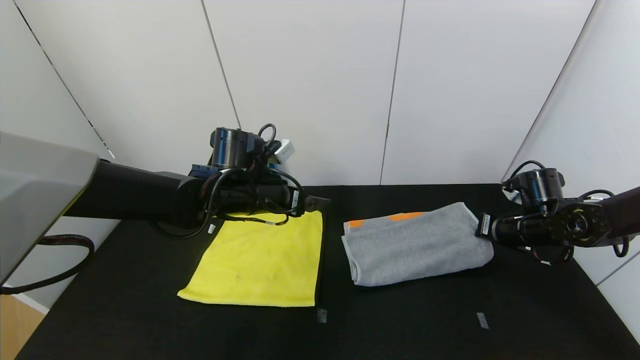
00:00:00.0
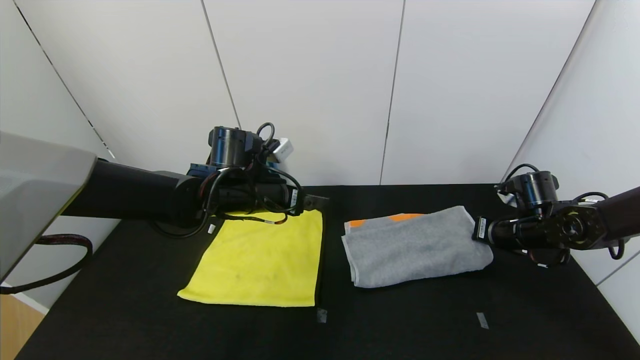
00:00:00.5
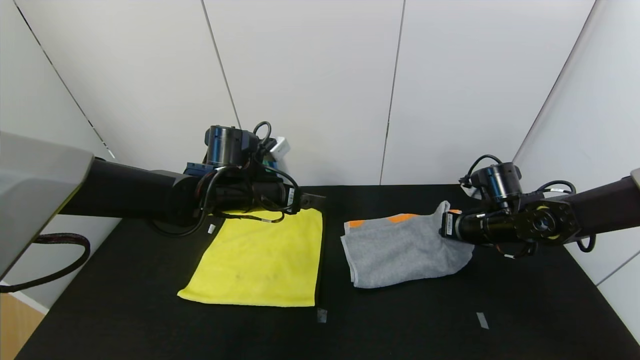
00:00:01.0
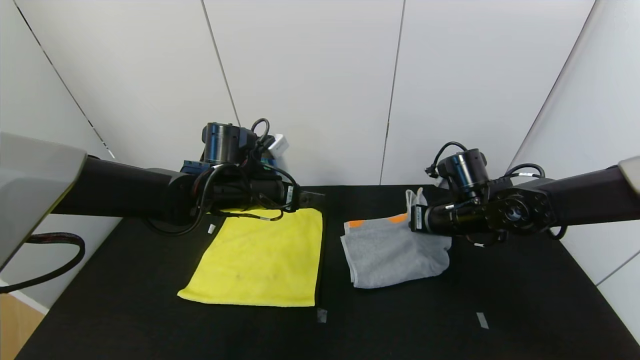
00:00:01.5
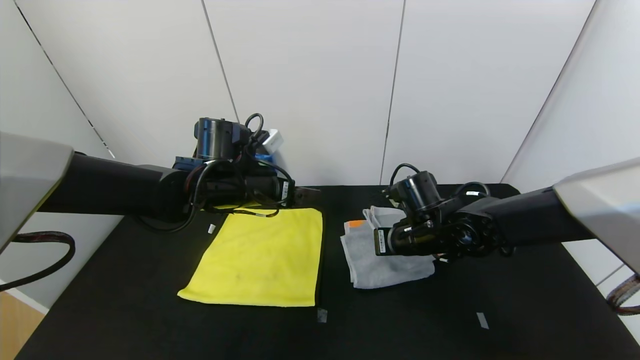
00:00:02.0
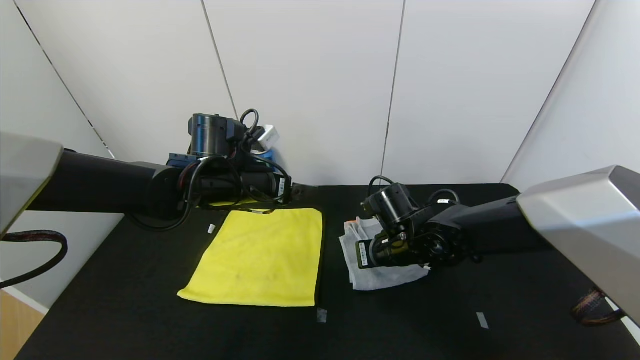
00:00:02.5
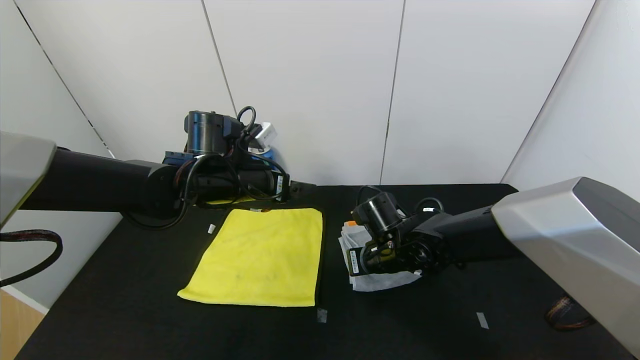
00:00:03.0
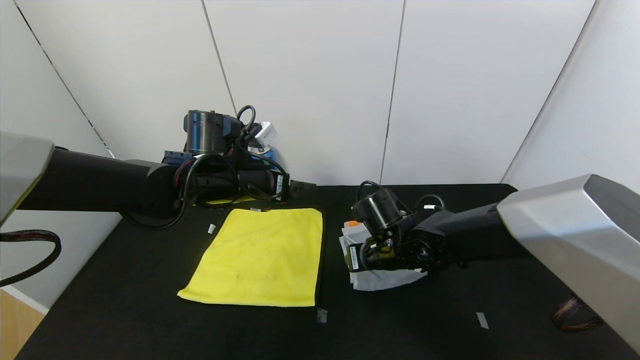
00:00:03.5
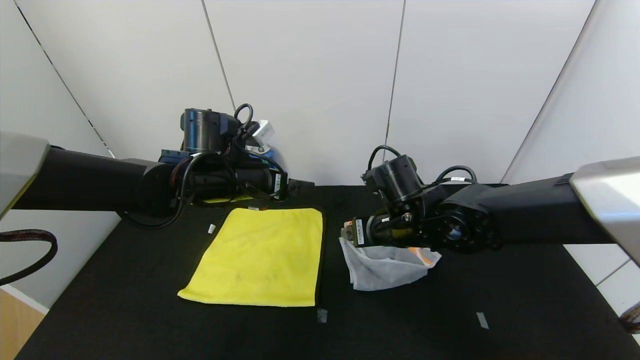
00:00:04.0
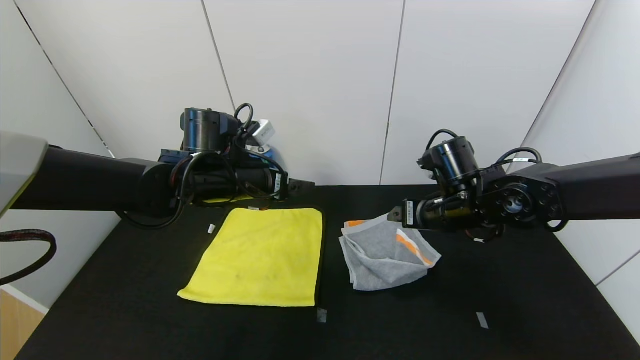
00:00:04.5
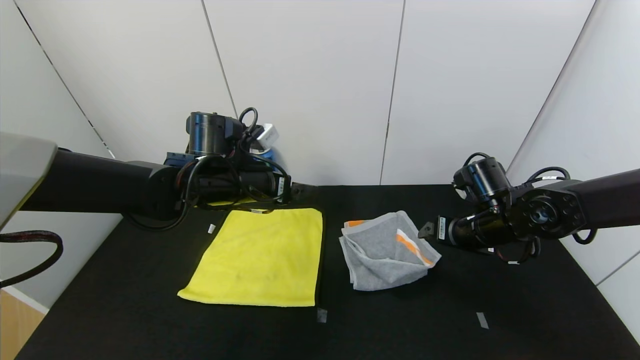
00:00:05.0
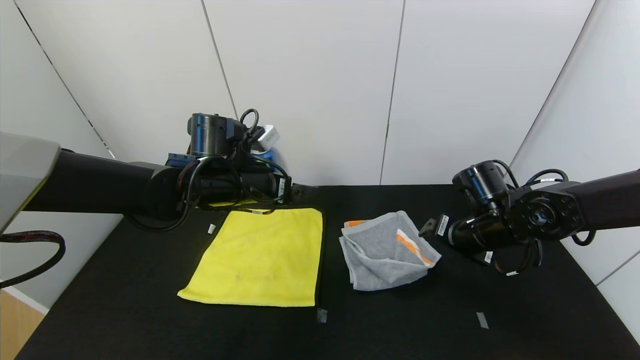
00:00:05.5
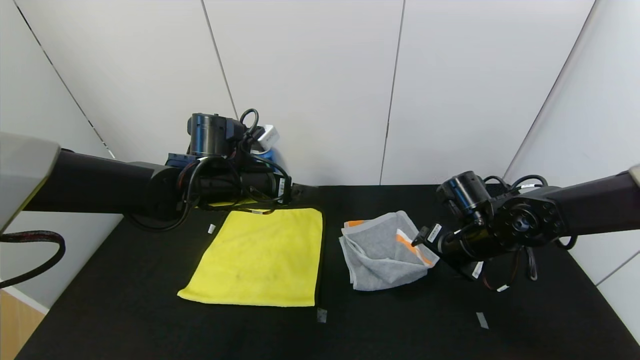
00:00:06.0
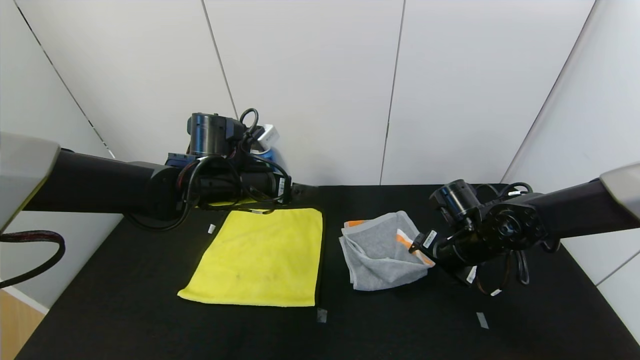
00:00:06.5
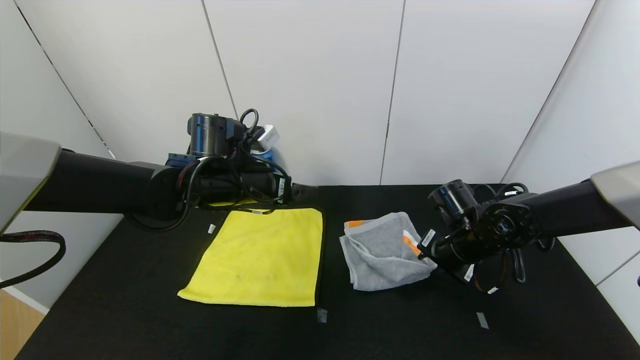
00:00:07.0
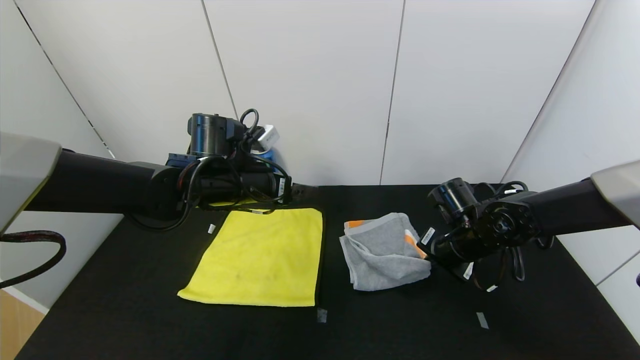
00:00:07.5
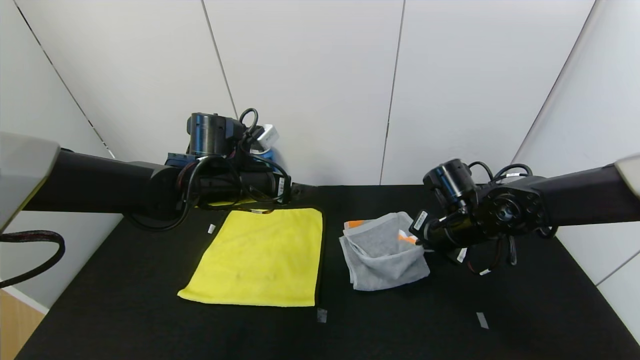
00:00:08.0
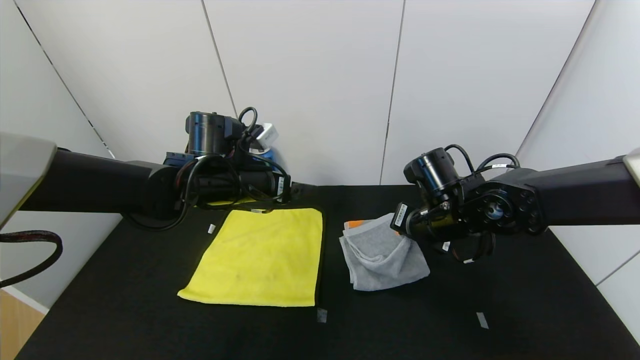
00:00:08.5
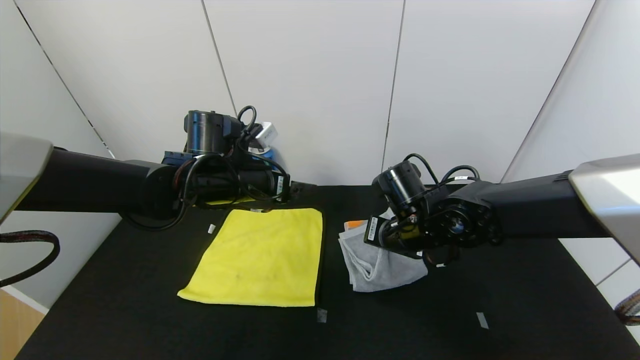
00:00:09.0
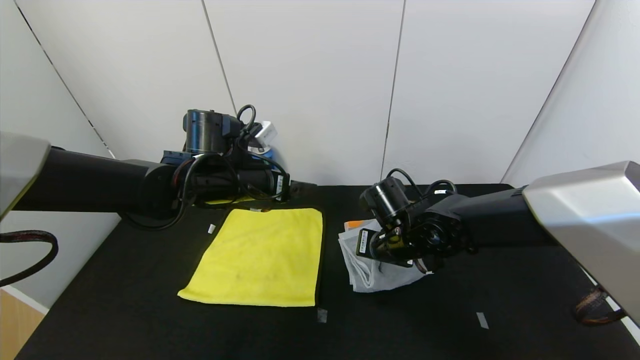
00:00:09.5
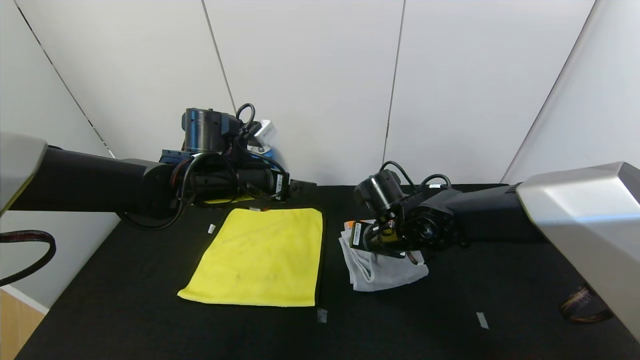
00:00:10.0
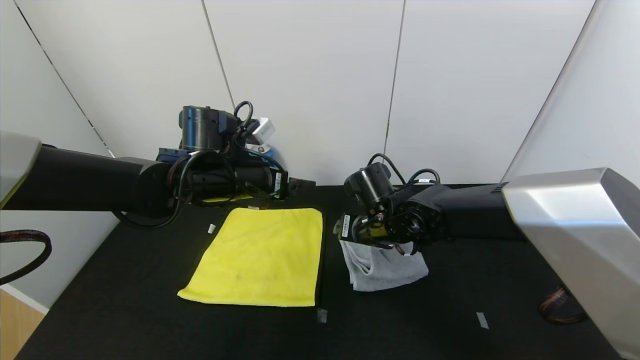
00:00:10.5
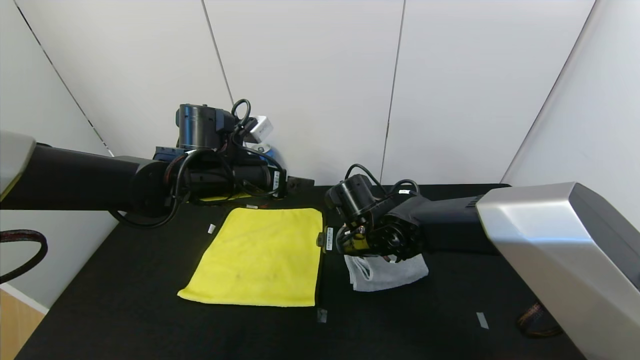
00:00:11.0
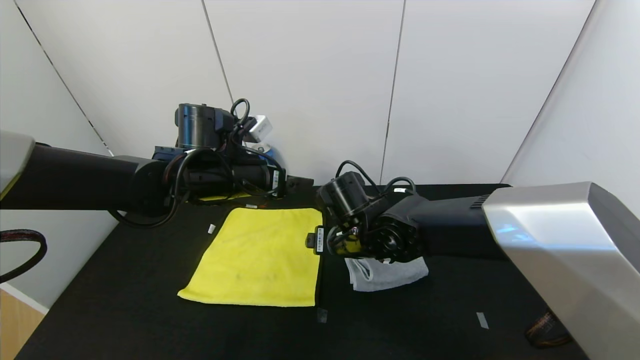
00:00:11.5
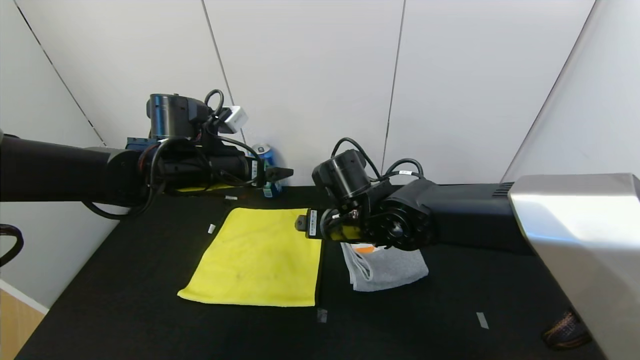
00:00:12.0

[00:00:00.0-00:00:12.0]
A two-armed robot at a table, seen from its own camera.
Task of the whole recording: Use the gripper to fold the yellow towel and grey towel in half twice,then put the yellow towel on the grey towel.
Step, 00:00:00.0 to 00:00:11.5: Fold the gray towel from right to left with right gripper.
00:00:00.0 to 00:00:02.0: The right gripper goes roughly 20 cm to the left.
00:00:02.0 to 00:00:04.0: The right gripper shifts by some 5 cm, and opens its fingers.
00:00:04.0 to 00:00:06.0: The right gripper heads to the right, covering roughly 10 cm.
00:00:06.0 to 00:00:08.0: The right gripper closes.
00:00:08.0 to 00:00:10.0: The right gripper travels to the left by some 10 cm, and opens.
00:00:10.0 to 00:00:12.0: The right gripper heads to the left, covering about 5 cm, and opens up.

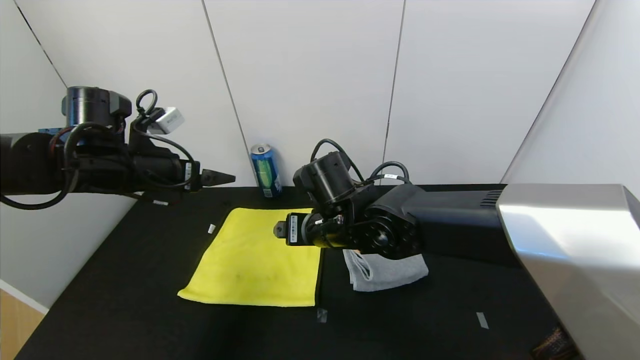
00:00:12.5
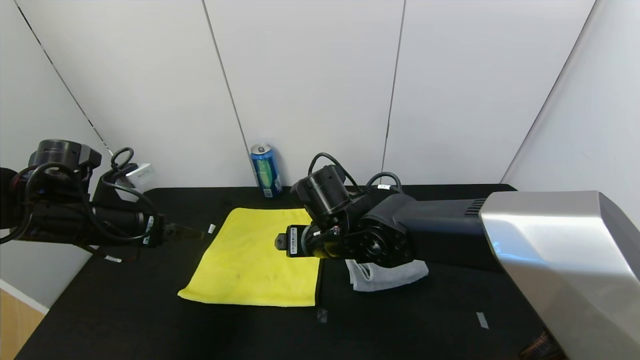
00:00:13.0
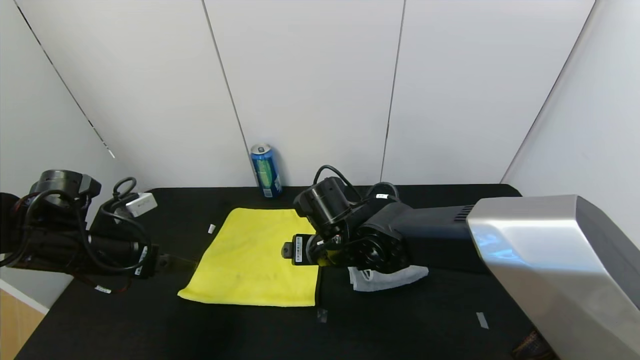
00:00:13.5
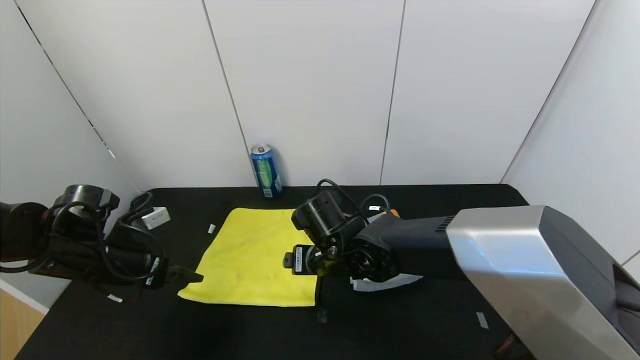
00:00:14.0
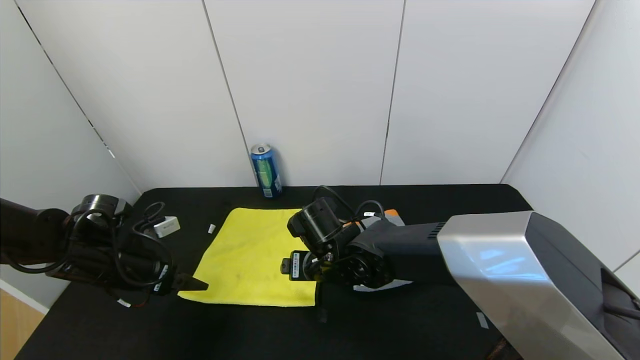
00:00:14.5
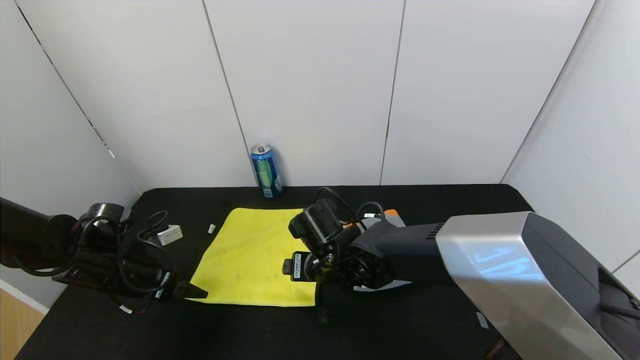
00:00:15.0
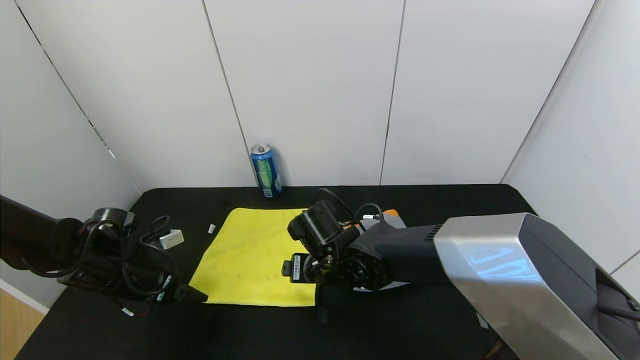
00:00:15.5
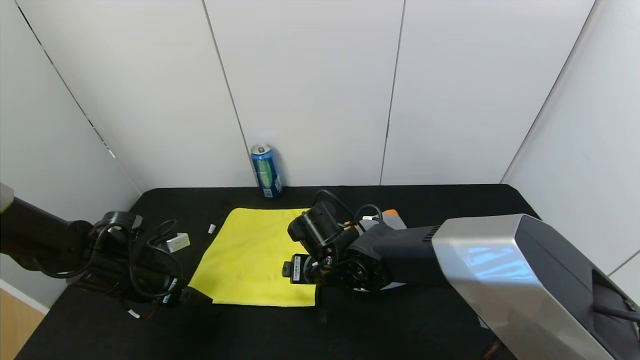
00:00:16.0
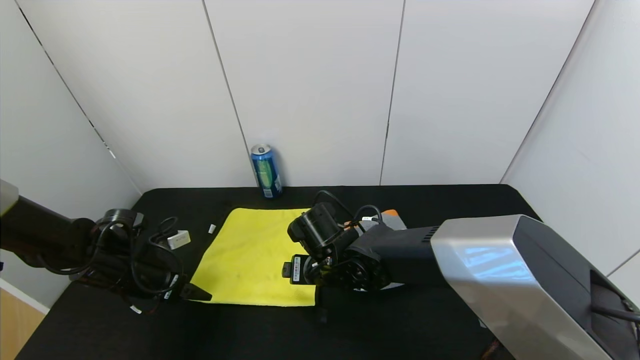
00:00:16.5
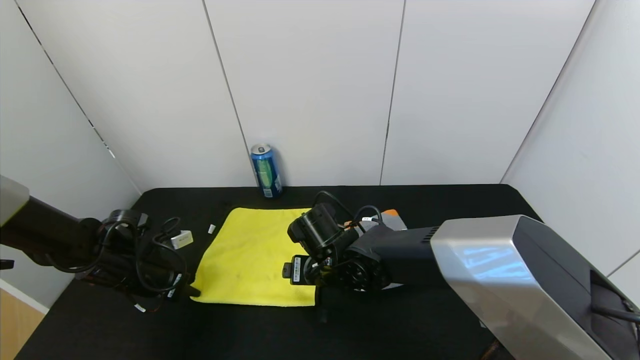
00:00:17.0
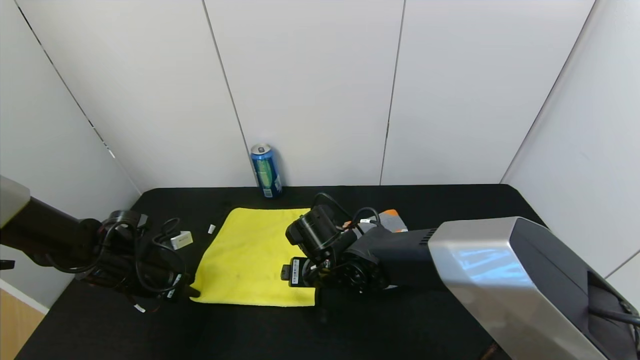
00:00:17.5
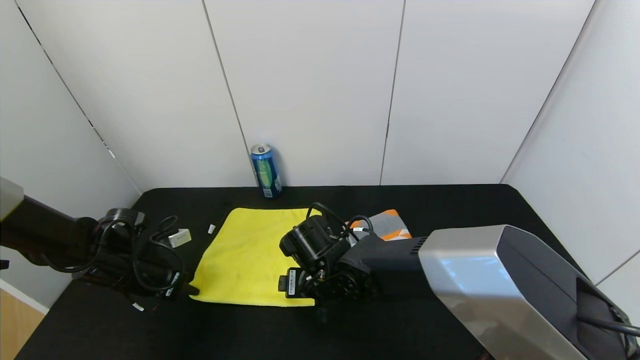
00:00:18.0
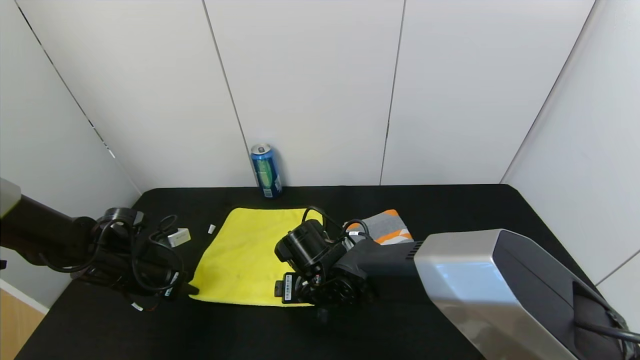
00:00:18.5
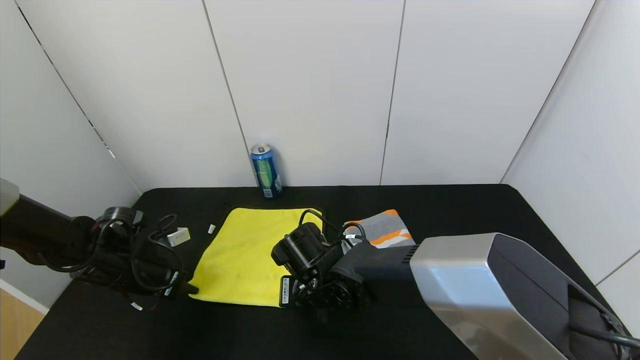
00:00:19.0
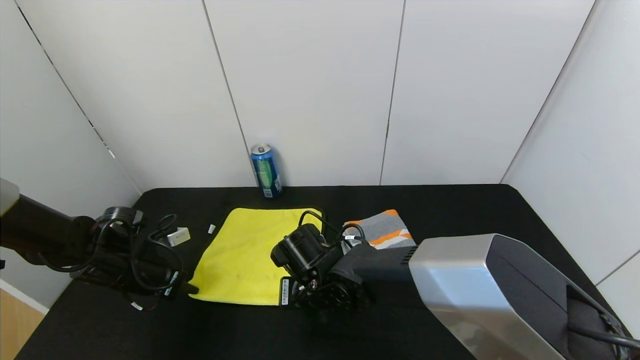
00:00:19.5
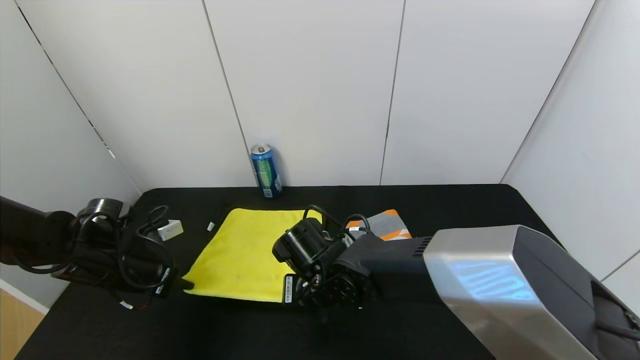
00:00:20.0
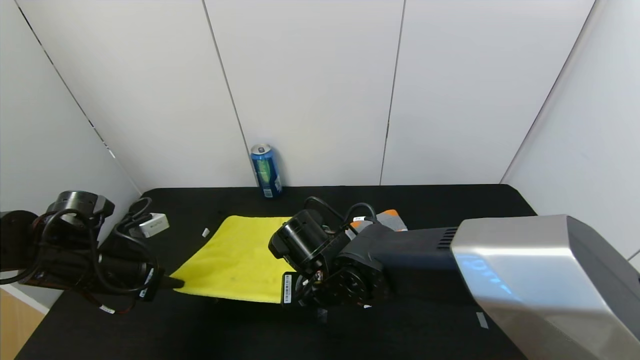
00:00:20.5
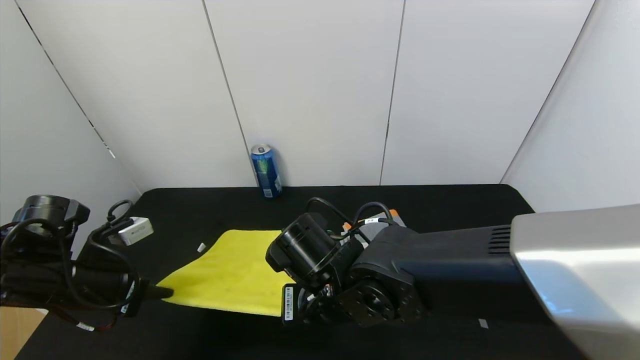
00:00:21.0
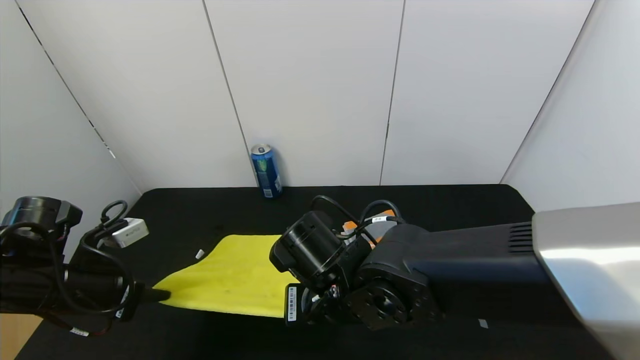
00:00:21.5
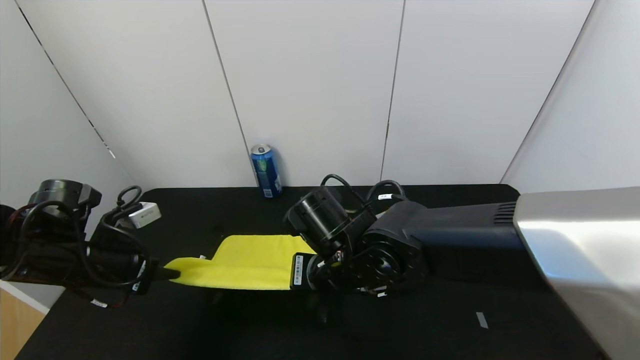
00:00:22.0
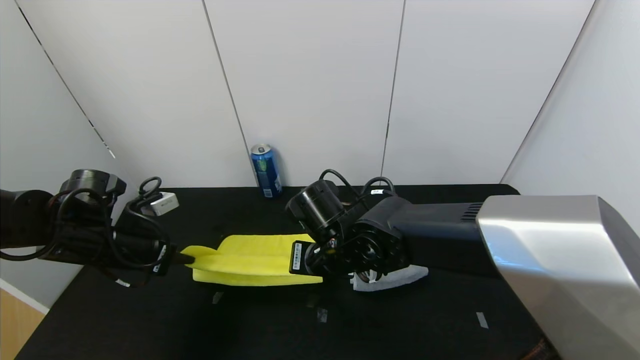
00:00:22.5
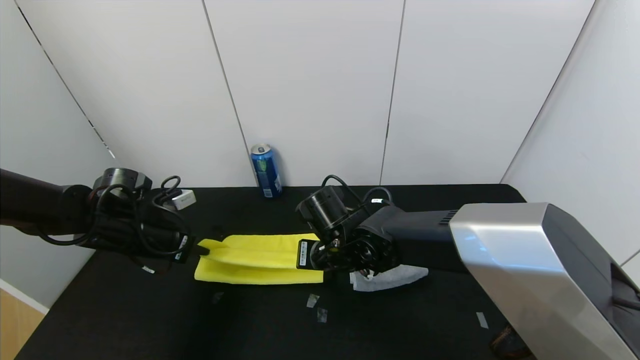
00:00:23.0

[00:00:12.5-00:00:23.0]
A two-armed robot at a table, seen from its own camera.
Task of the whole recording: Use the gripper to fold the yellow towel and grey towel in half twice,then put the yellow towel on the grey towel.
00:00:12.5 to 00:00:14.5: The left gripper moves downward and to the left, approximately 15 cm; the right gripper is displaced downward by roughly 5 cm.
00:00:14.5 to 00:00:16.5: The grippers stay close to where they were, moving slightly.
00:00:16.5 to 00:00:19.0: The right gripper closes. The left gripper closes up.
00:00:19.0 to 00:00:21.0: The right gripper goes roughly 5 cm upward, and closes; the left gripper travels backward and upward by some 10 cm.
00:00:21.0 to 00:00:23.0: The two grippers go about 10 cm forward.
